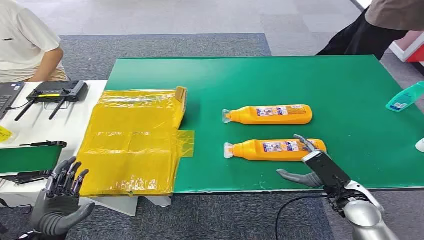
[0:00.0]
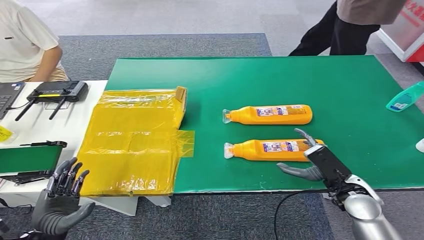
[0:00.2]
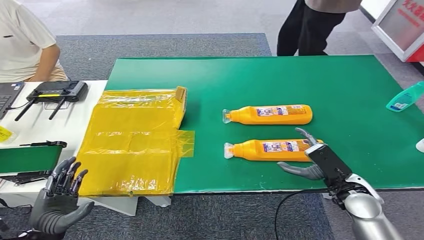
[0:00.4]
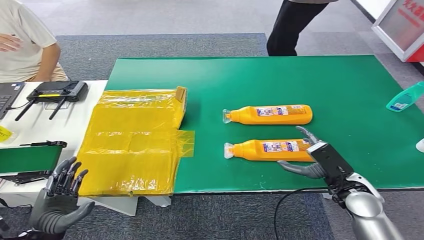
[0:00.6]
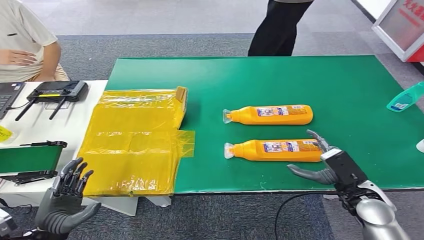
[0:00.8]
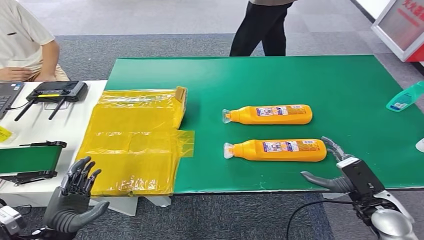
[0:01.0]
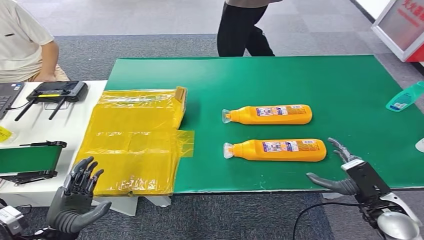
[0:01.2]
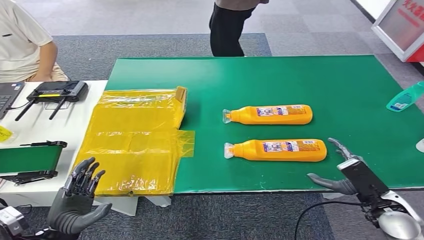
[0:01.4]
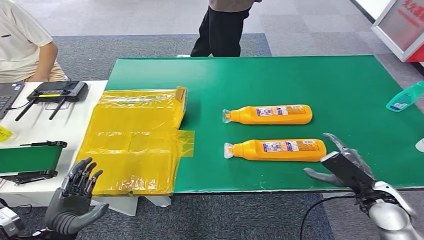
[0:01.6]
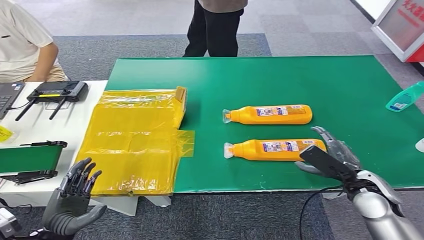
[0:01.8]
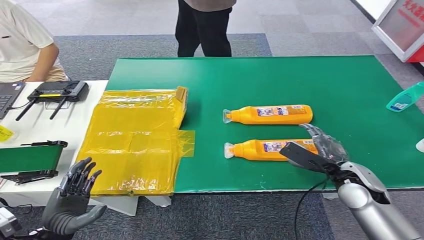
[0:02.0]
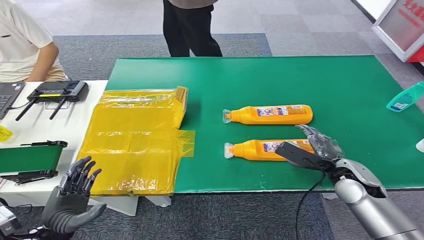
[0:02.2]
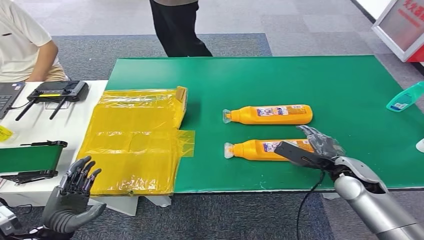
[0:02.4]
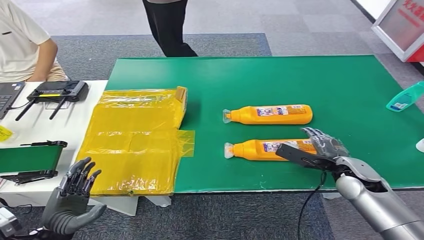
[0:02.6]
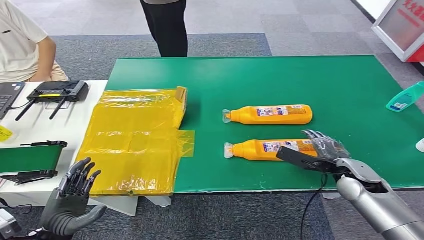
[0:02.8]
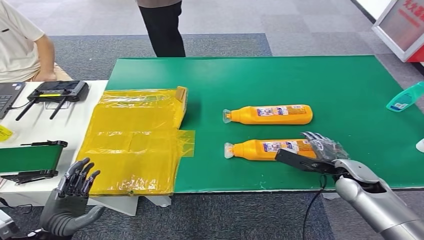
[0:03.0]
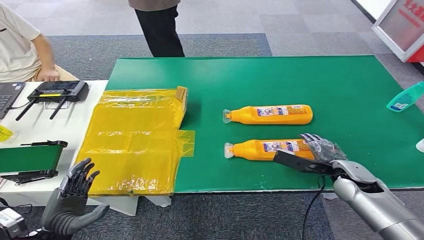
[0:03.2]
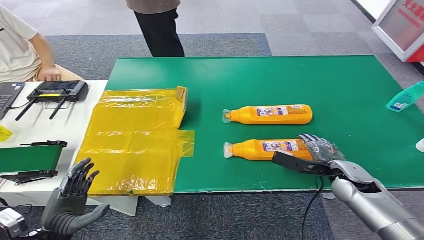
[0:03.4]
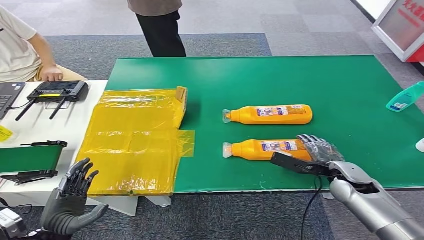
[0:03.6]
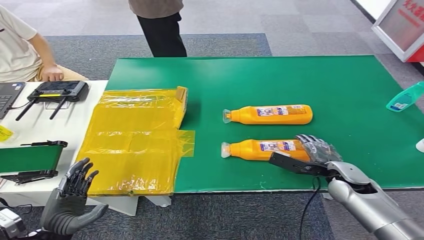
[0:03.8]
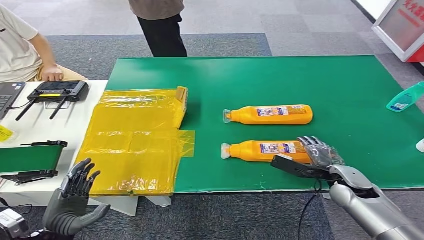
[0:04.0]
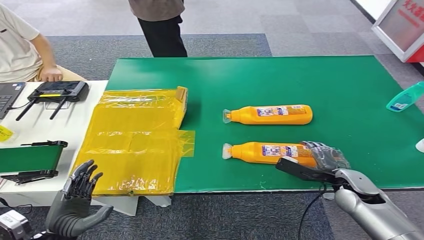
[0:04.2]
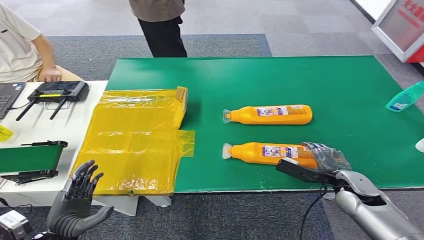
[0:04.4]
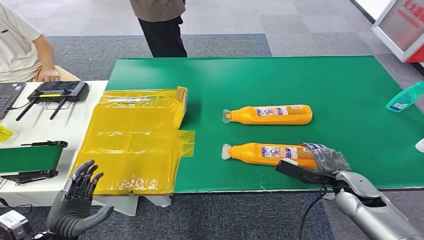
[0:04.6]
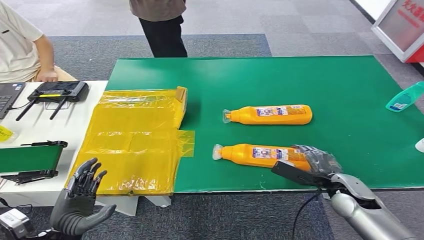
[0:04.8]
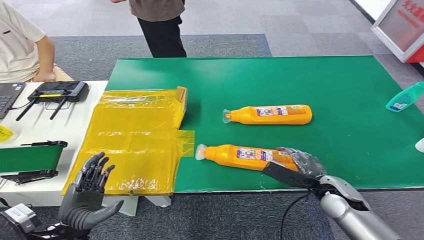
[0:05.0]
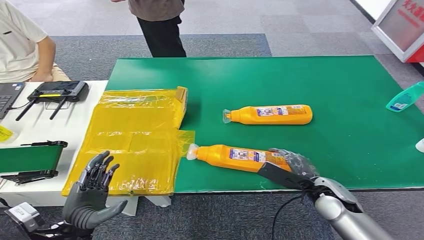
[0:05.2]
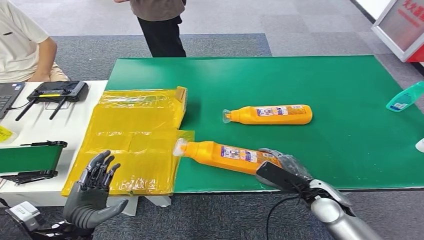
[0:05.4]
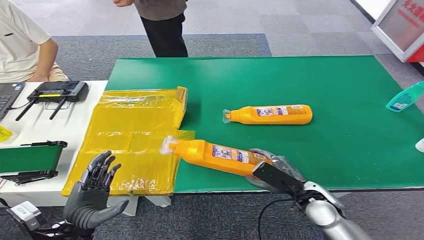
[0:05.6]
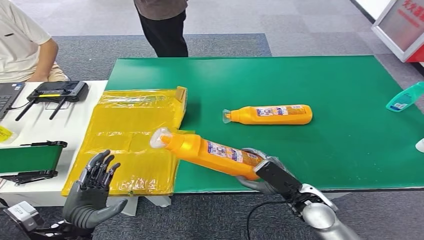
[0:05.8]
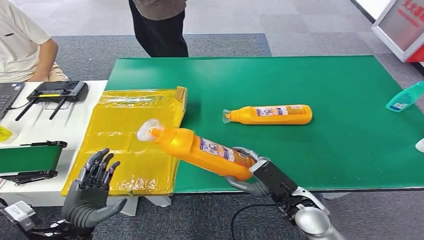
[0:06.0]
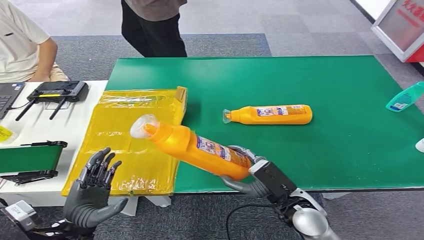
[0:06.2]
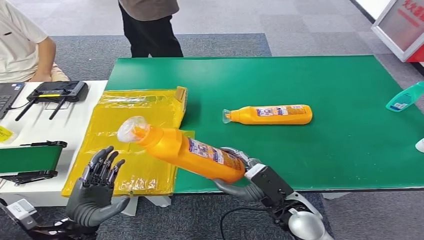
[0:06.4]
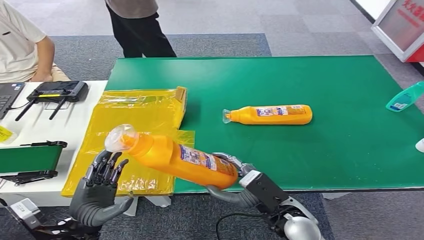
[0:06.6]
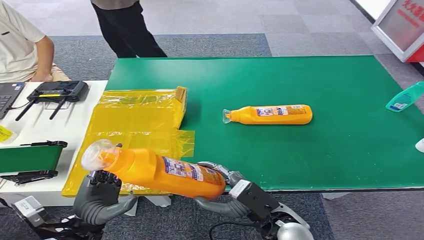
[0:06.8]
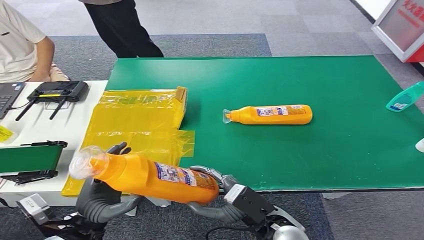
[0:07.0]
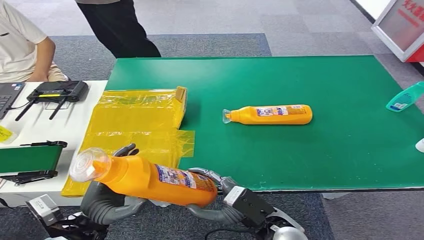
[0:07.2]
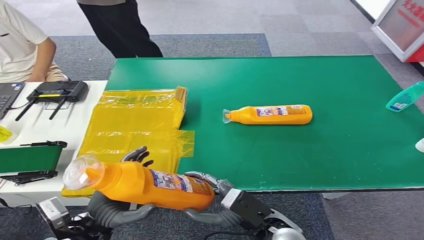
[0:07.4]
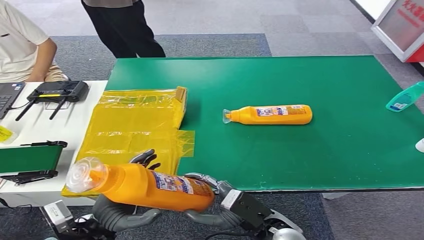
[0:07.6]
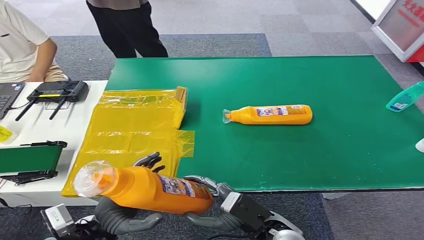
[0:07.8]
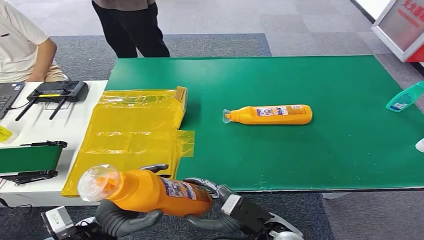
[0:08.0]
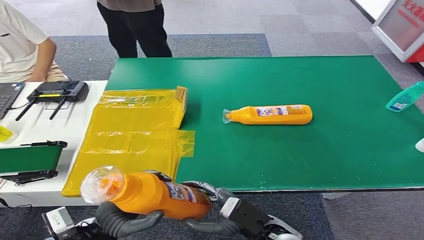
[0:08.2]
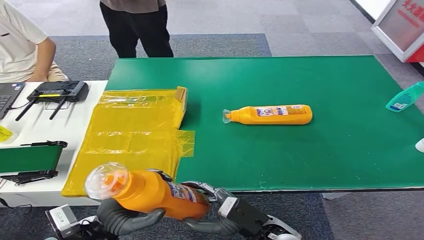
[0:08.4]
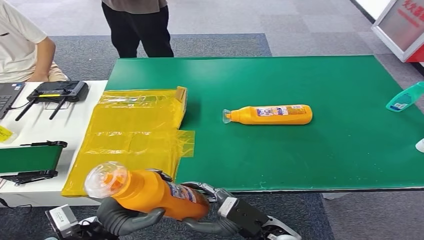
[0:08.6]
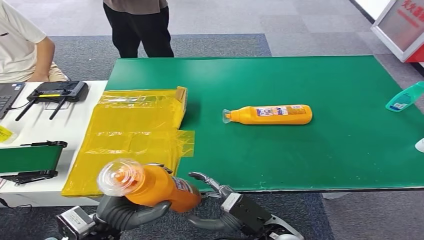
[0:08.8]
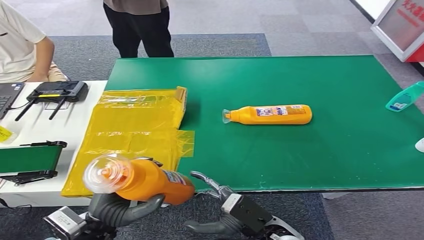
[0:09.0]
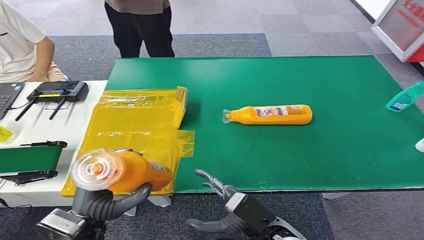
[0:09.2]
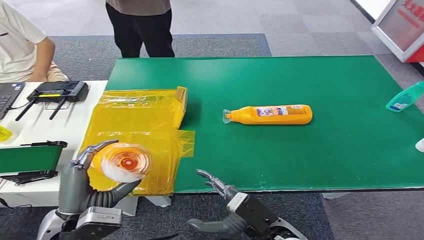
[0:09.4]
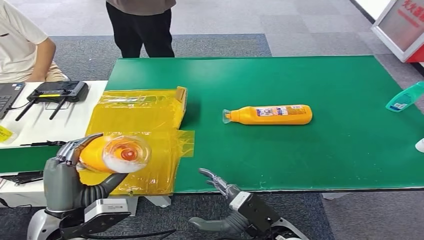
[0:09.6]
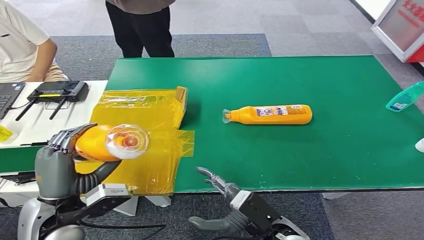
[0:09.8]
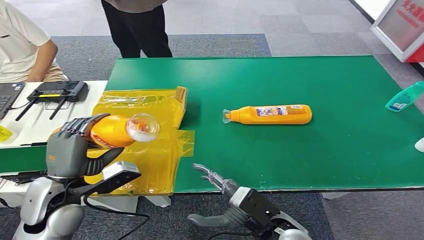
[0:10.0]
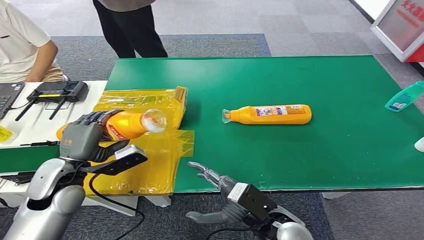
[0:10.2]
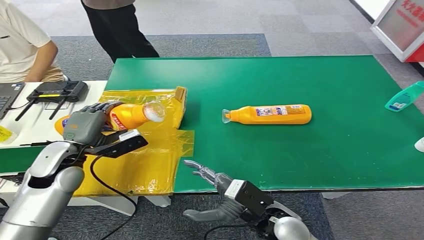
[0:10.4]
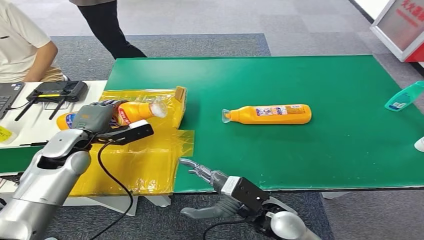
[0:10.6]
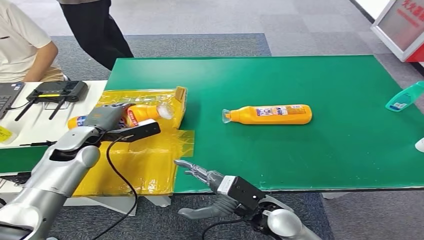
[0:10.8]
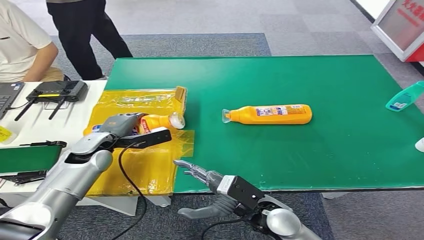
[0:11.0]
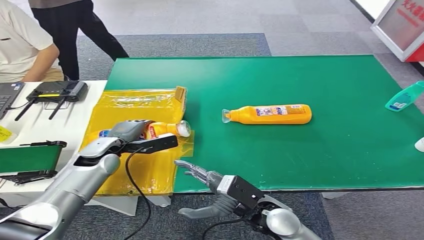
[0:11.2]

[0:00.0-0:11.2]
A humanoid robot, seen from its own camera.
Step, 0:00.0 to 0:06.6: Pick up the bottle from the table.
0:01.6 to 0:03.2: The right hand moves forward, about 10 cm.
0:03.2 to 0:04.8: The hands stay close to where they were, moving slightly.
0:04.8 to 0:06.4: The right hand is displaced to the left and backward by some 15 cm. The left hand moves some 5 cm.
0:06.4 to 0:08.0: The right hand shifts by about 5 cm.
0:08.0 to 0:09.6: The left hand moves upward, some 5 cm.

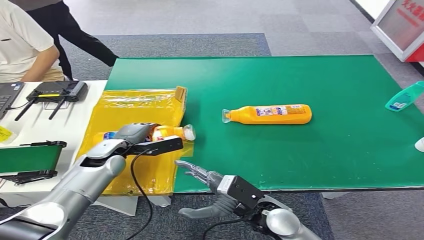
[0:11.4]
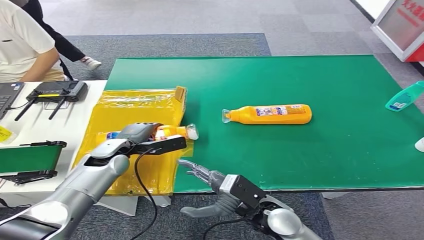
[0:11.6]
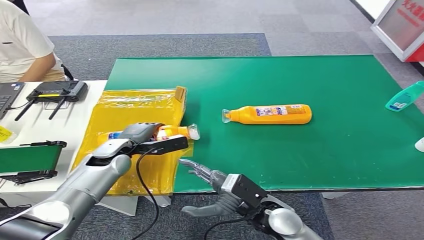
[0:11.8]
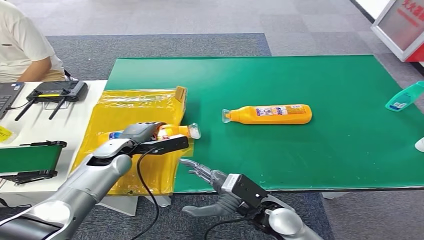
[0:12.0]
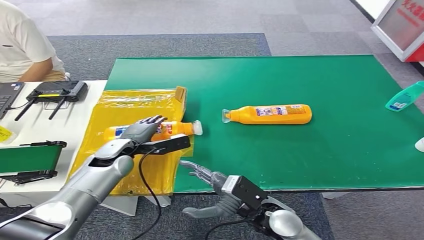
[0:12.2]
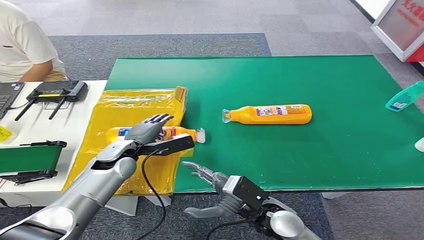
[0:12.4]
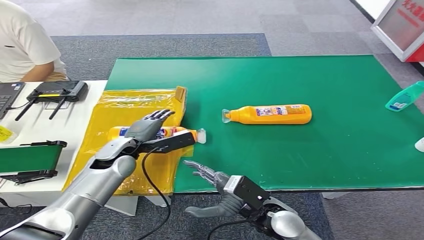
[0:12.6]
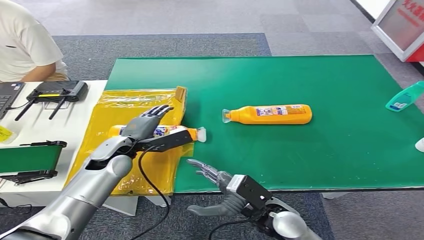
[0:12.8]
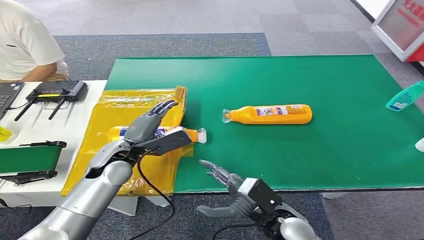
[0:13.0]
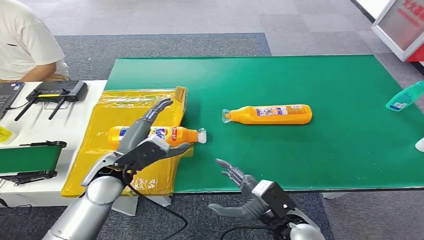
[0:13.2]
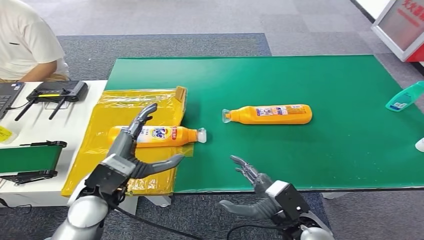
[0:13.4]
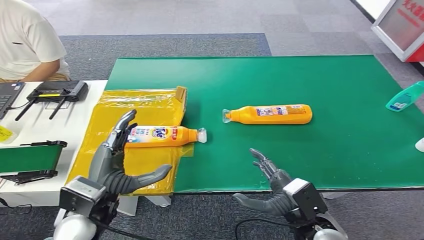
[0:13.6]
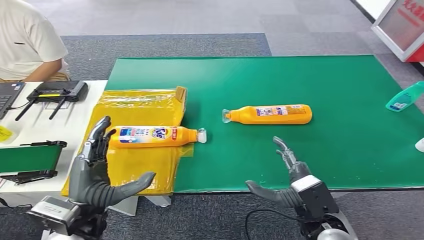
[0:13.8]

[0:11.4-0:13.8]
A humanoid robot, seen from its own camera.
Step, 0:11.4 to 0:13.6: Turn the bottle to the front side.
0:11.4 to 0:12.6: The hands make only small movements.
0:12.6 to 0:13.8: The right hand travels to the right by some 10 cm. The left hand moves backward, approximately 20 cm.

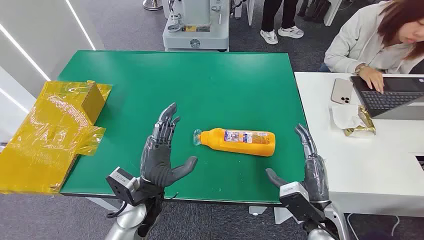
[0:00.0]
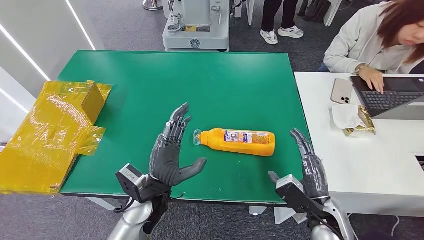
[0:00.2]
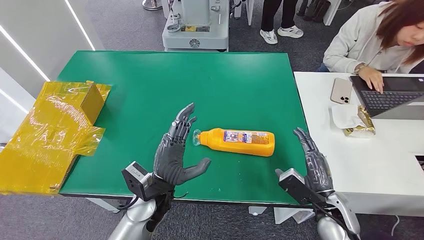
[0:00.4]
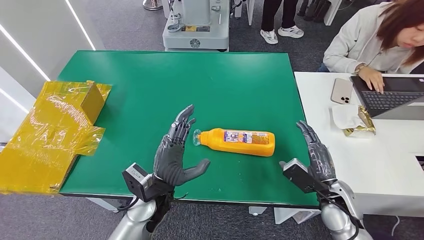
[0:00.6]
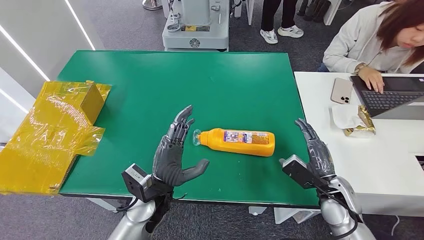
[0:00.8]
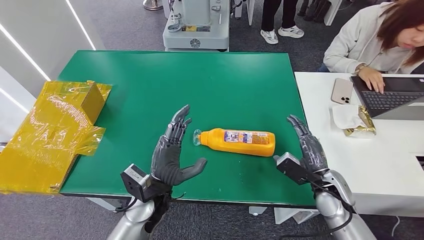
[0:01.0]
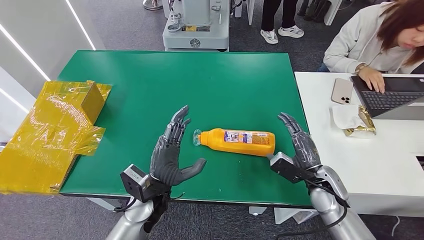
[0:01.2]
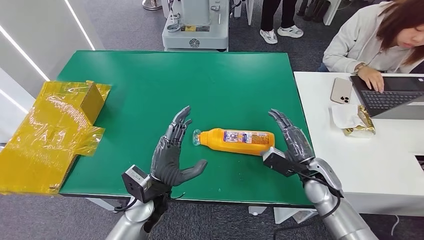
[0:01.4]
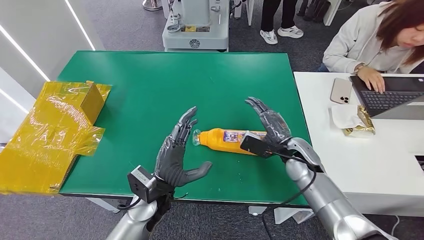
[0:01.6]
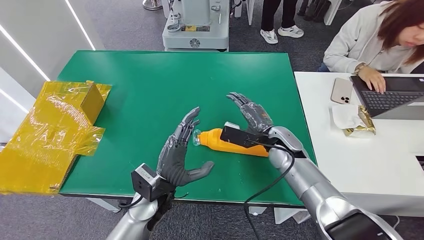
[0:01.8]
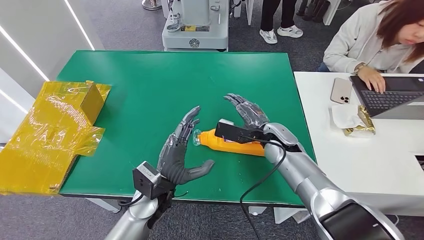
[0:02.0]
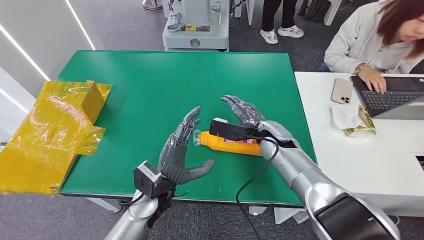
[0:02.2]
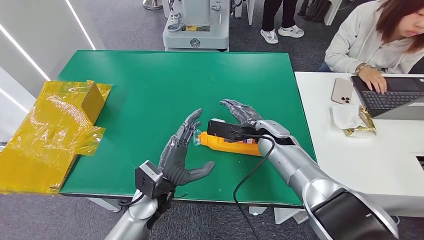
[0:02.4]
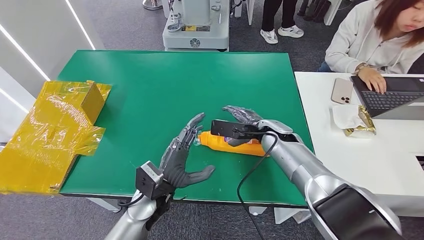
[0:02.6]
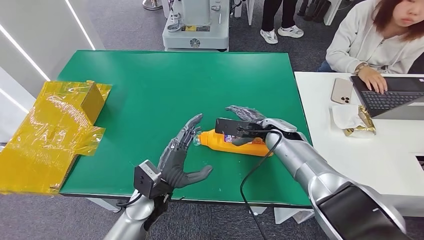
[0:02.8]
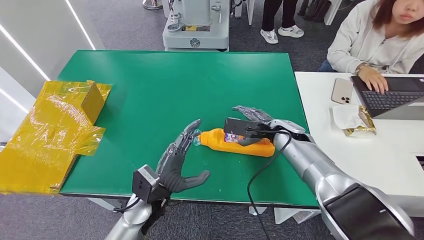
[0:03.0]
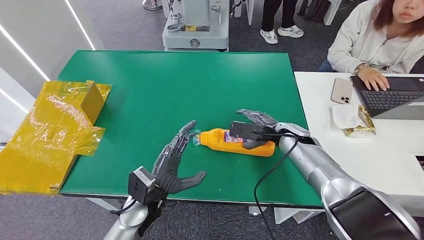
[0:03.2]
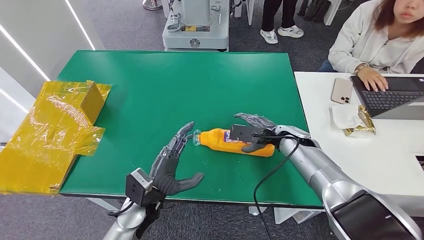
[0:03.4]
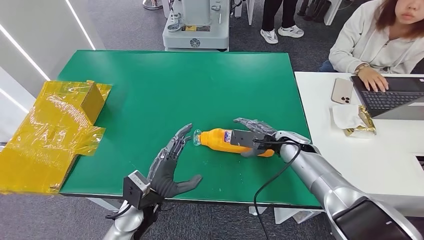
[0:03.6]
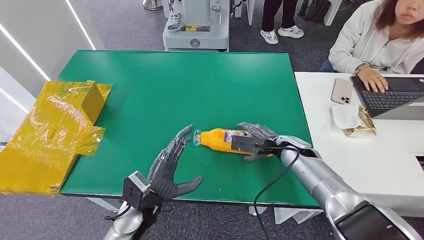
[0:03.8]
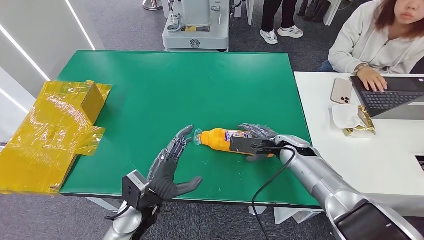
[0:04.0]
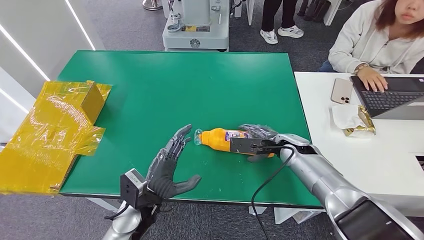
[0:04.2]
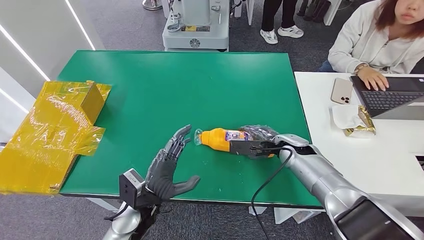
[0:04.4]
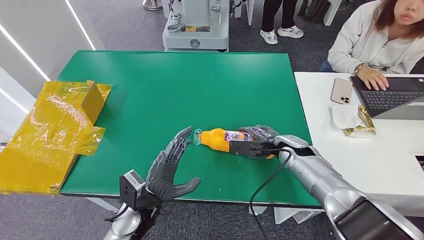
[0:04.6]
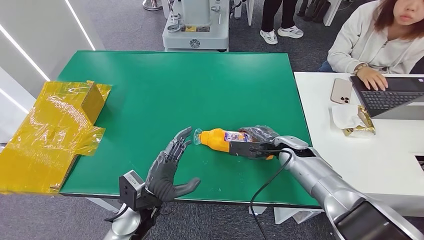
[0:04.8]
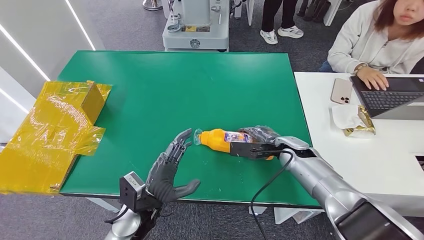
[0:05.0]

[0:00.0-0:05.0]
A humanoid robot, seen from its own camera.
0:03.4 to 0:05.0: The hands move only a little.
